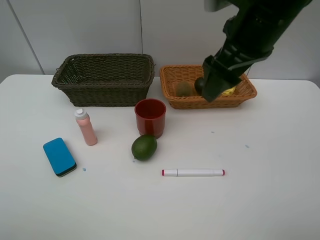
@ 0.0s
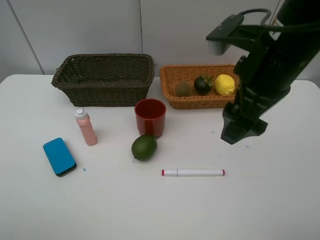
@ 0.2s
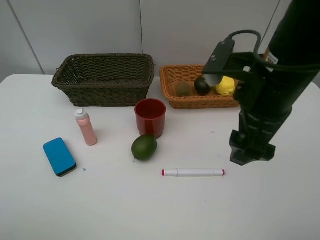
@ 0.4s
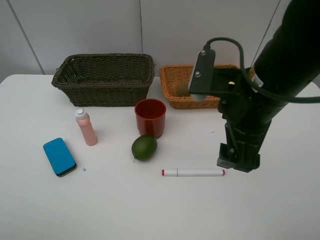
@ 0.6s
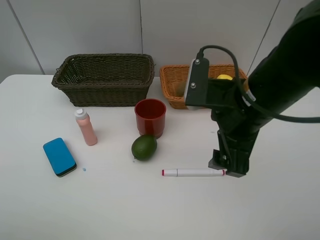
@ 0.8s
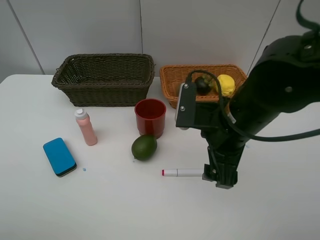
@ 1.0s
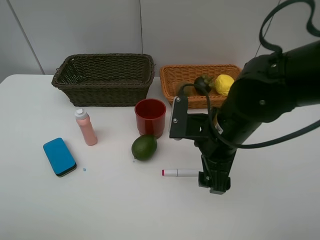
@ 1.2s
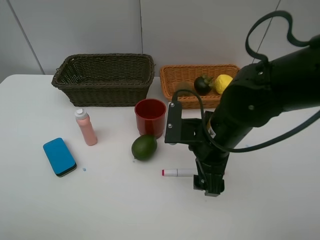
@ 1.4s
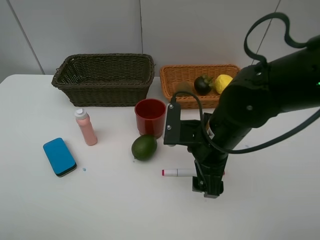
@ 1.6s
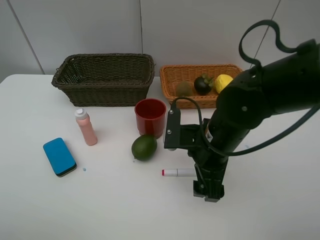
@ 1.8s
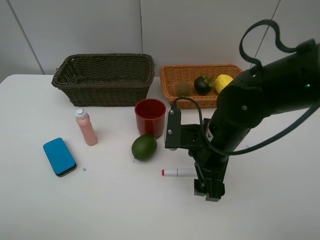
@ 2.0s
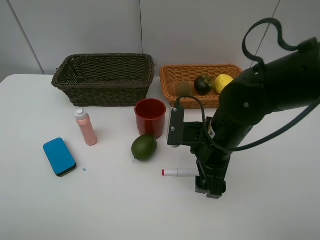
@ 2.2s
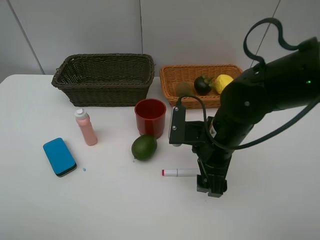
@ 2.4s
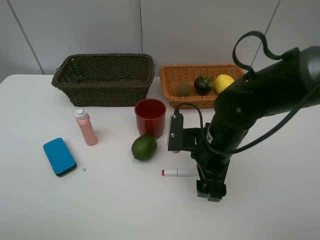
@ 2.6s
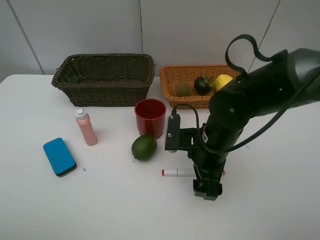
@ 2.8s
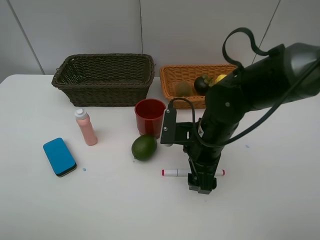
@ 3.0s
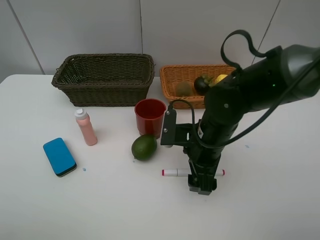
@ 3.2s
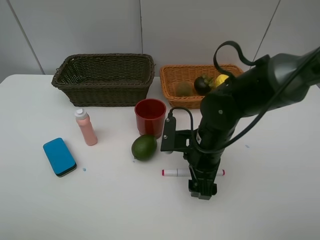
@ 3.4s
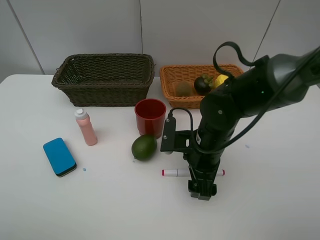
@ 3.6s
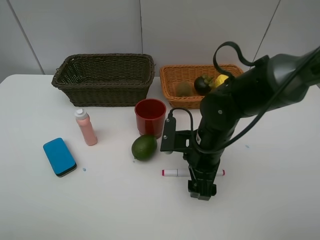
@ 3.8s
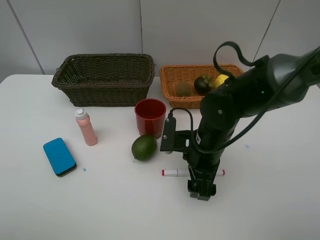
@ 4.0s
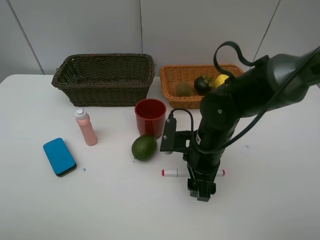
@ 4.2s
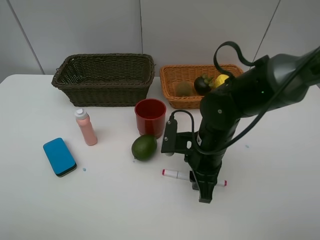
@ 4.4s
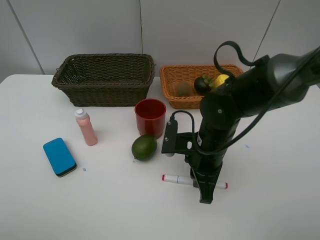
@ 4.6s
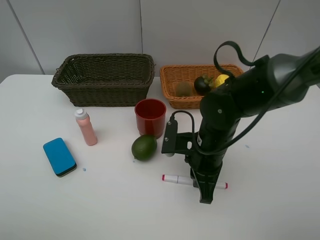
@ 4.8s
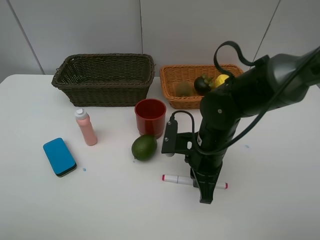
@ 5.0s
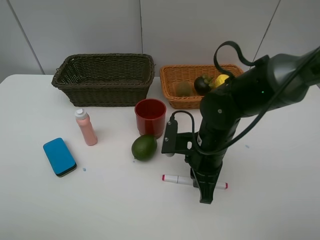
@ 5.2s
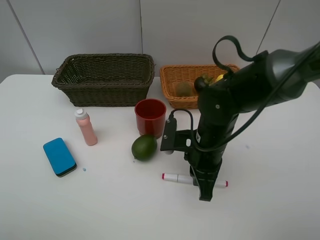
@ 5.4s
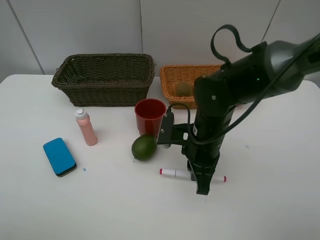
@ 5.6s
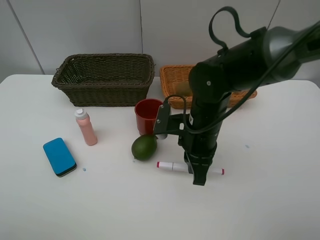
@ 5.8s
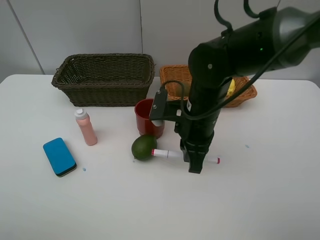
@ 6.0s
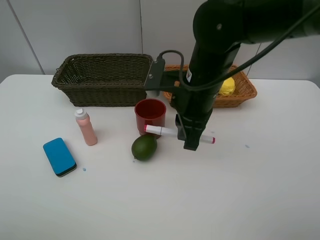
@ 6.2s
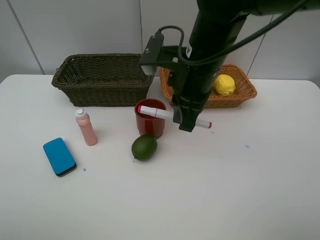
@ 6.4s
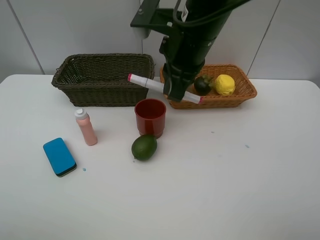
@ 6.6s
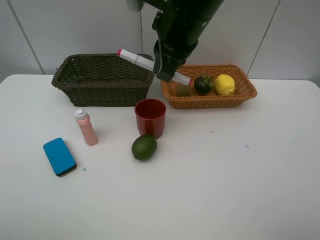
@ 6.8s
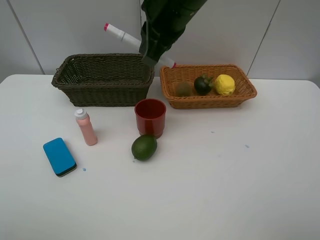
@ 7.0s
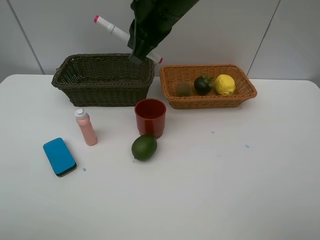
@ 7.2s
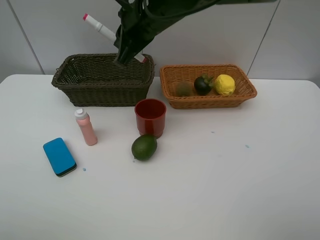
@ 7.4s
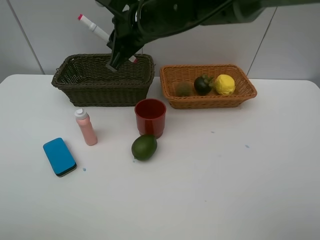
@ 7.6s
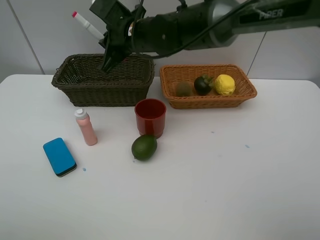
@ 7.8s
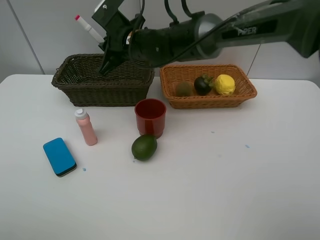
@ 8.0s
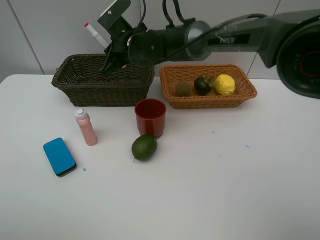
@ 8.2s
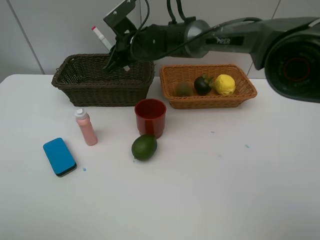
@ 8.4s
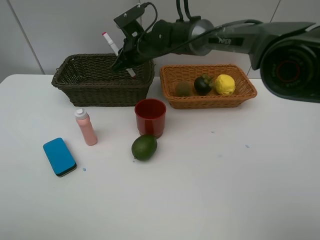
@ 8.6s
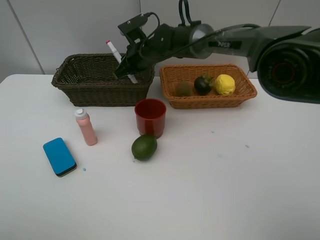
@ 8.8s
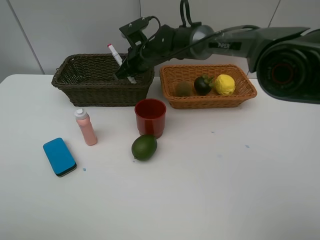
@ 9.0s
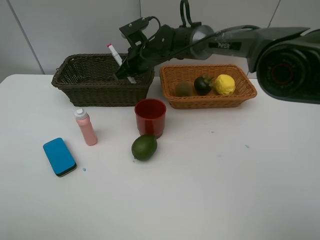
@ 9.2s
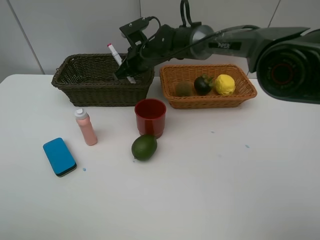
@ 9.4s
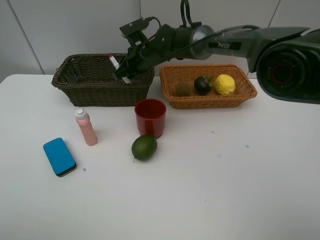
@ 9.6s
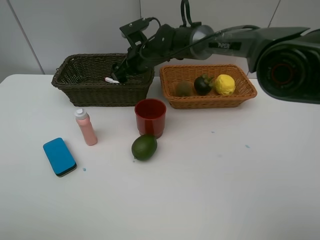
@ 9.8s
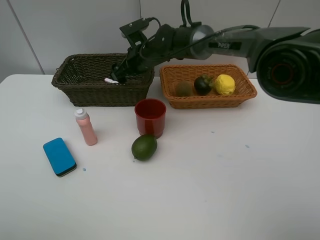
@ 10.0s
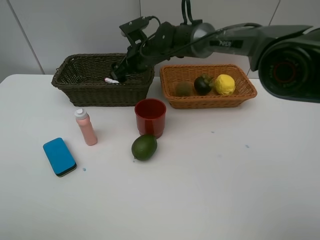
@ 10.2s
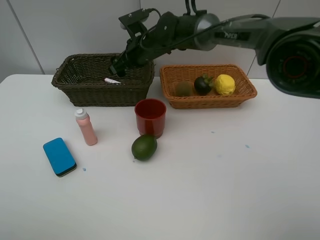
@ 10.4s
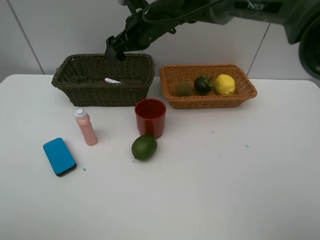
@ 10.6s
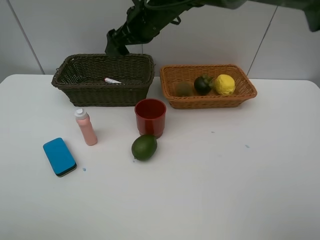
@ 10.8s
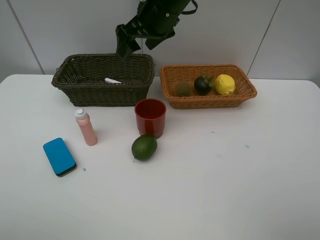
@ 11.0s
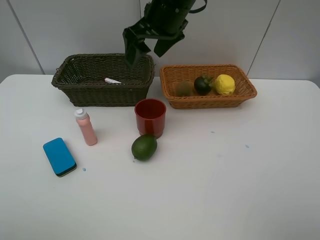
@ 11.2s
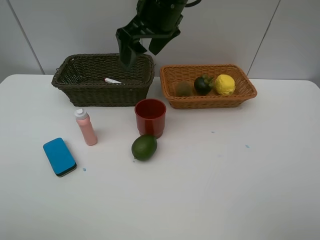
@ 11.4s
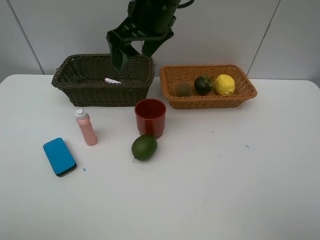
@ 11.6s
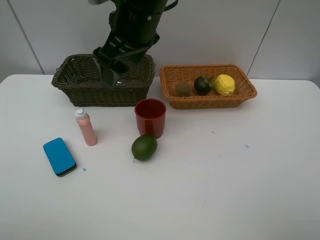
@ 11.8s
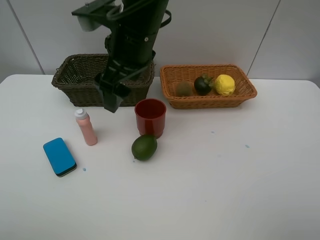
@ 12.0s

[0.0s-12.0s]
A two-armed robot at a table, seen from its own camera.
Task of the whole recording: Place multiple objects separately in different baskets.
Step, 0.0s to 5.6s: Pick up the red marker with right gripper.
Step, 5.8s to 10.0s: Place the red marker in the dark basket with right gripper.
0.0s to 1.6s: The right gripper goes roughly 15 cm downward.
1.6s to 3.0s: The grippers move only a little.
3.0s to 4.4s: The right gripper closes up.
4.4s to 6.0s: The right gripper moves upward, some 5 cm.
6.0s to 7.6s: The right gripper goes approximately 15 cm forward, to the left and upward.
7.6s to 9.0s: The right gripper shifts roughly 15 cm downward and forward.
9.0s to 10.4s: The right gripper opens its fingers.
10.4s to 12.0s: The right gripper travels backward and upward by roughly 20 cm.

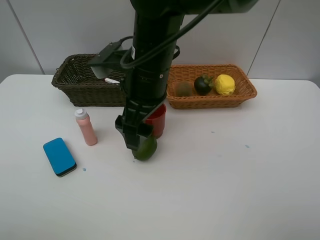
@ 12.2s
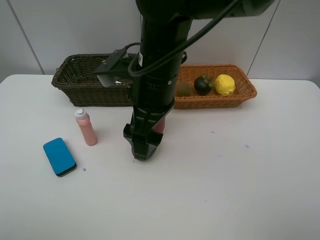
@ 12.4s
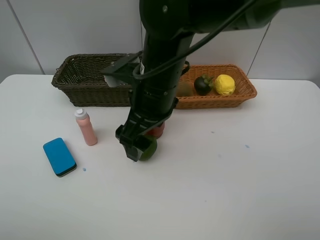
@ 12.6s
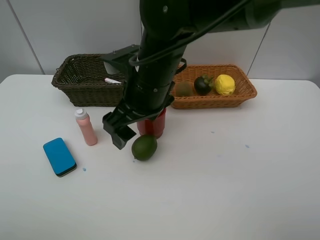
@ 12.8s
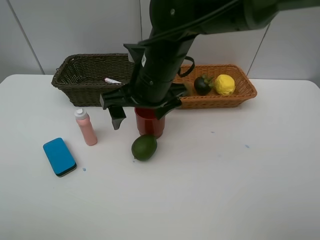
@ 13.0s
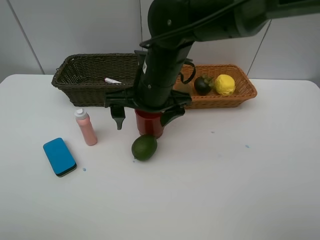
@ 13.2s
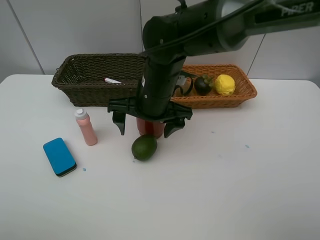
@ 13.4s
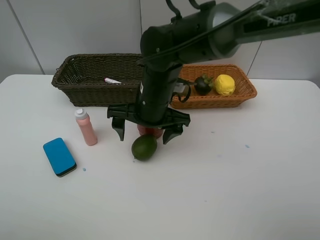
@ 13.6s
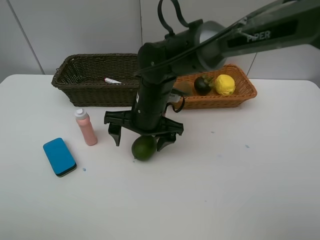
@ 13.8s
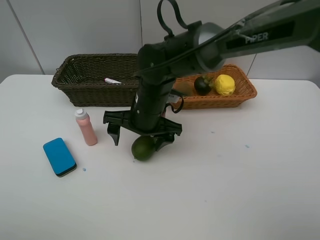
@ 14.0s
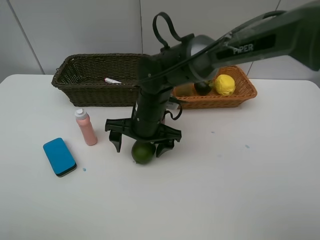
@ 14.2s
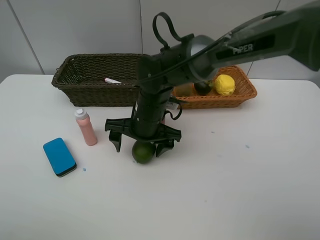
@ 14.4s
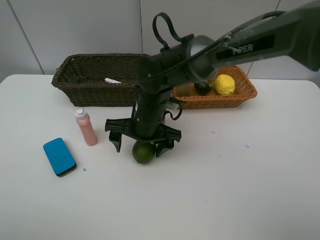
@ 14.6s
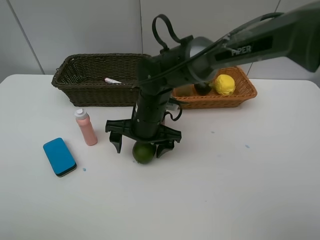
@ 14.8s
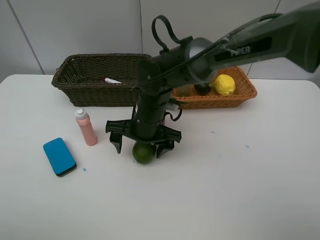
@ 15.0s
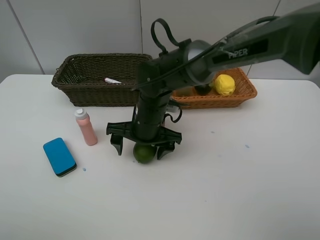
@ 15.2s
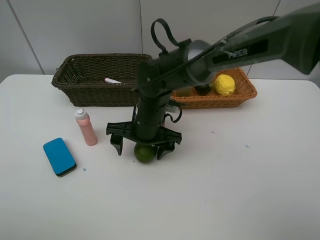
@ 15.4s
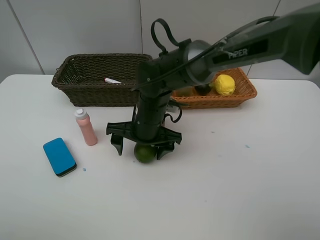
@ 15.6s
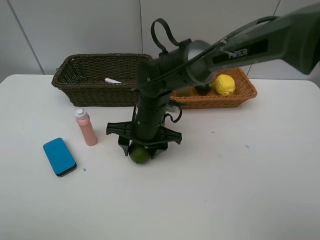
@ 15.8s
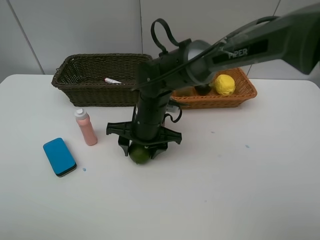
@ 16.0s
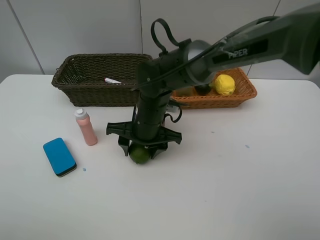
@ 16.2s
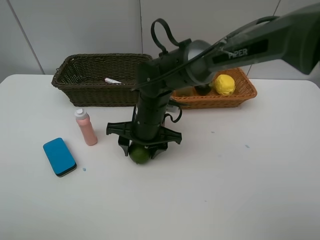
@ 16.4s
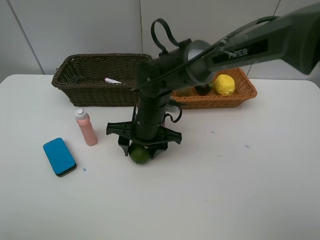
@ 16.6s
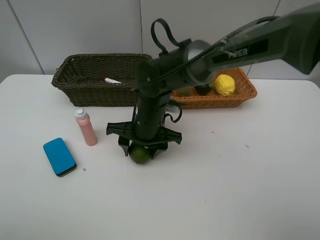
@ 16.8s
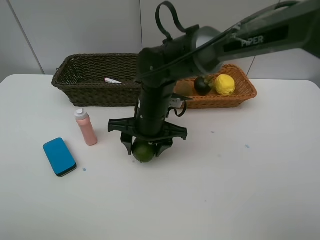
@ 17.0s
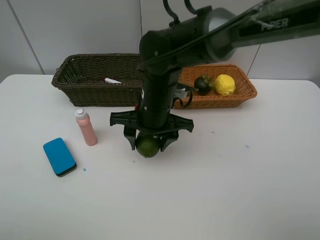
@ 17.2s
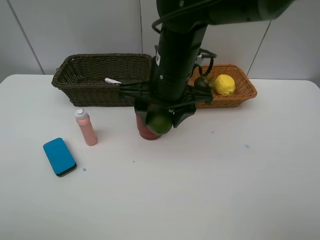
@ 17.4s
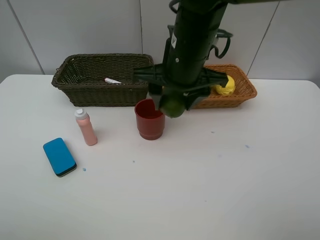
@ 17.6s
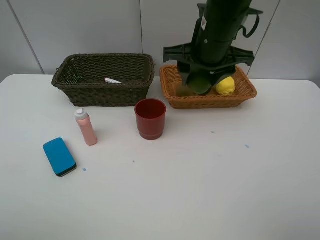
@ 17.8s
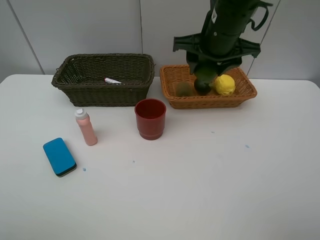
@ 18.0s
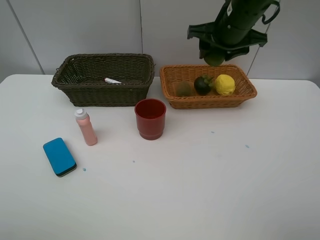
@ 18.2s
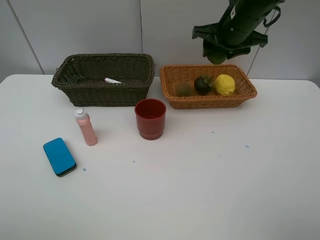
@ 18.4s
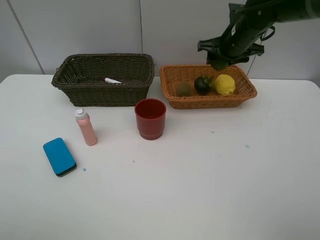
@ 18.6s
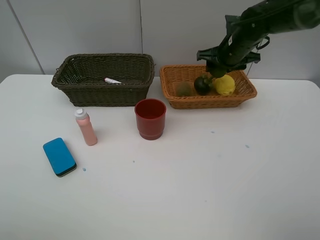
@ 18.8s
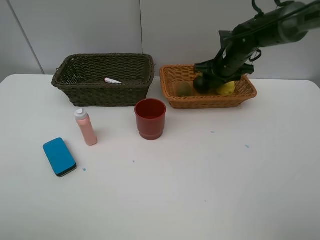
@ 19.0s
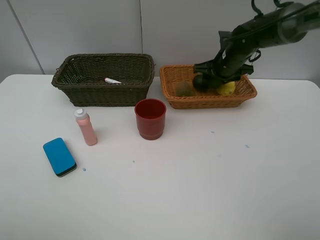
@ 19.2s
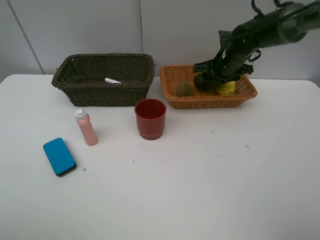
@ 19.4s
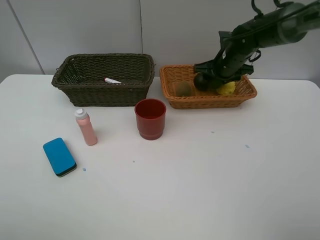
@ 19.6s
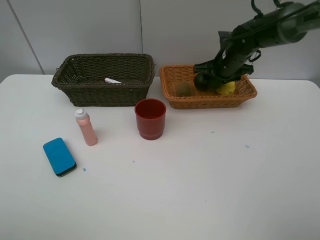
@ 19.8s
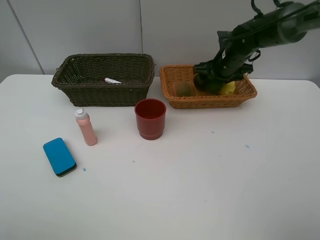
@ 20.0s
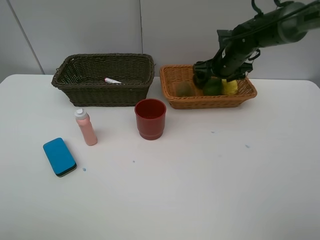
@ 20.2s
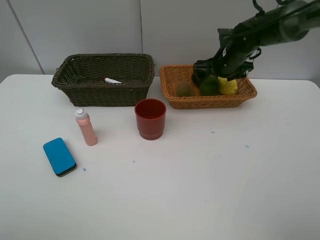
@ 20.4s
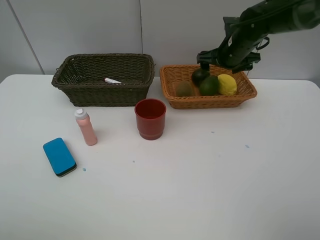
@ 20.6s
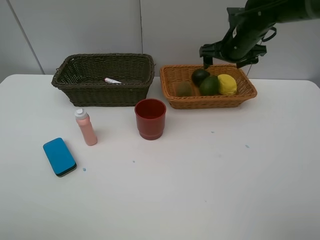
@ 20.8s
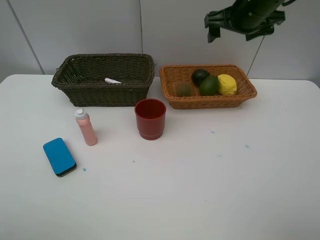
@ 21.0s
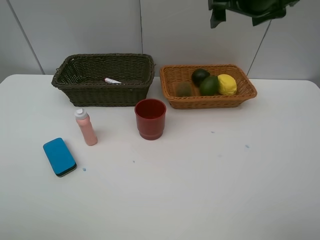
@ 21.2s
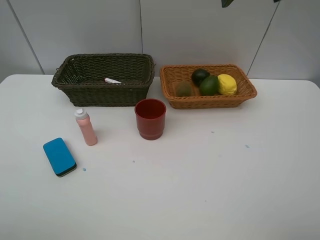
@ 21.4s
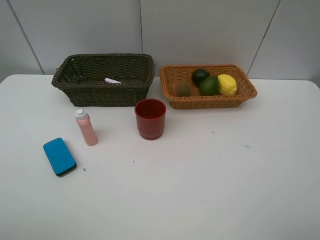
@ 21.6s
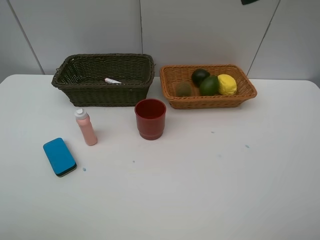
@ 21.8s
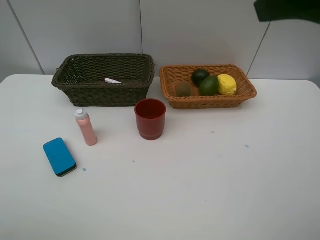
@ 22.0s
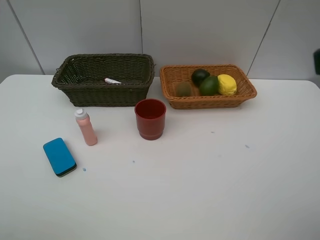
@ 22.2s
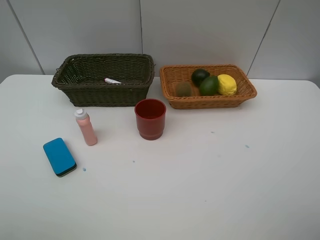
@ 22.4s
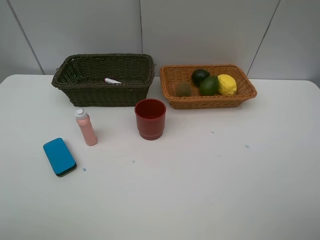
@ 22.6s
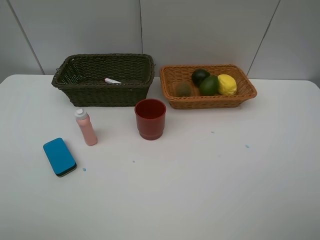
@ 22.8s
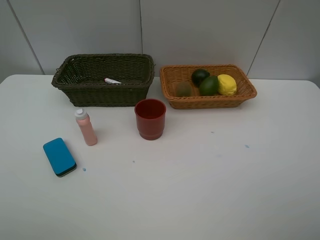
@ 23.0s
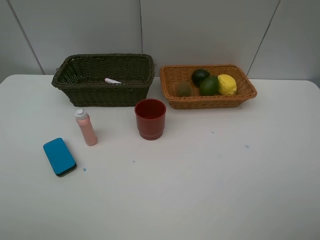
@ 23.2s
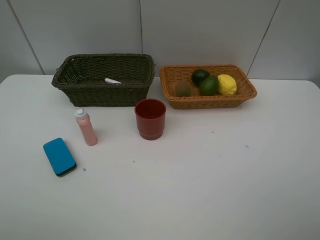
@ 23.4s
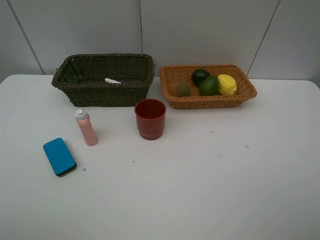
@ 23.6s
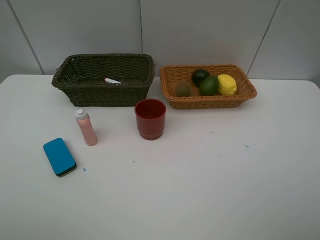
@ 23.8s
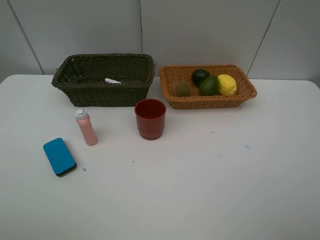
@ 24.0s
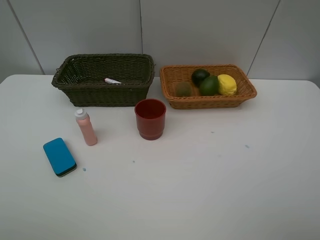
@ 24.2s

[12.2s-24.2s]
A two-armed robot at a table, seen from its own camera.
Task of the whole recording: Place multiple objects separately in different baskets.
Step, 12.2s to 17.0s: Pick up the lime with right gripper.
Step, 17.2s to 20.6s: Place the lime in the light basket with right gripper.
12.2s to 13.8s: The right gripper travels downward by some 10 cm.
13.8s to 15.2s: The grippers move only a little.
15.2s to 16.6s: The right gripper closes.
16.6s to 18.2s: The right gripper heads to the right, upward and forward, covering about 25 cm.
18.2s to 19.8s: The right gripper heads downward and forward, covering some 15 cm.
19.8s to 21.2s: The right gripper shifts some 20 cm upward and backward, and opens up.
21.2s to 22.6s: The right gripper moves backward, approximately 35 cm.
